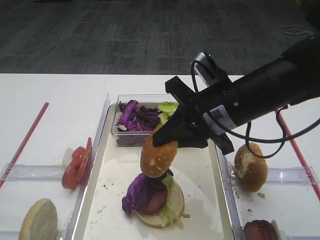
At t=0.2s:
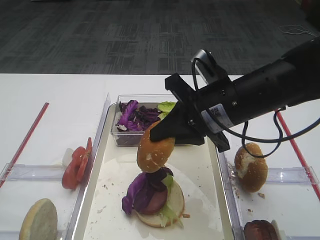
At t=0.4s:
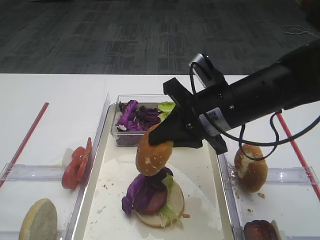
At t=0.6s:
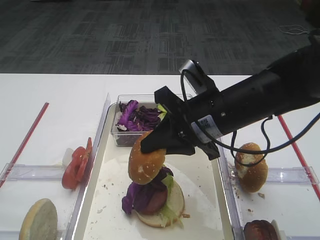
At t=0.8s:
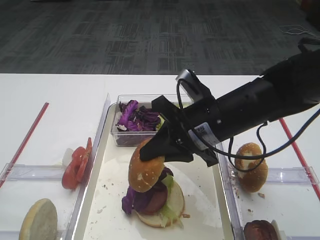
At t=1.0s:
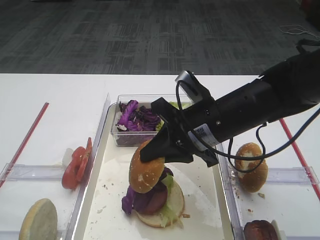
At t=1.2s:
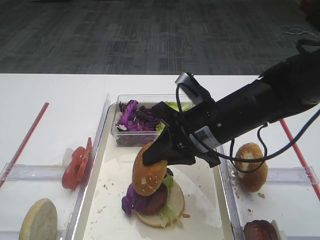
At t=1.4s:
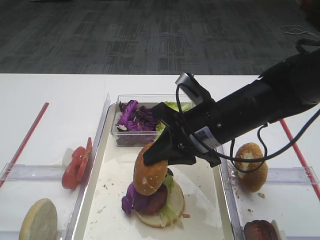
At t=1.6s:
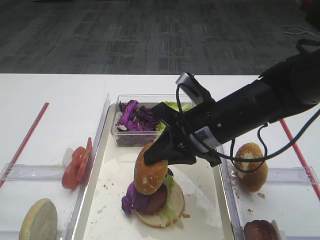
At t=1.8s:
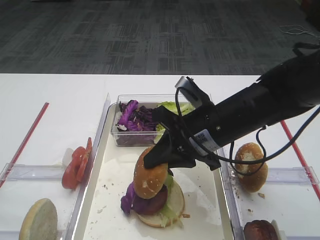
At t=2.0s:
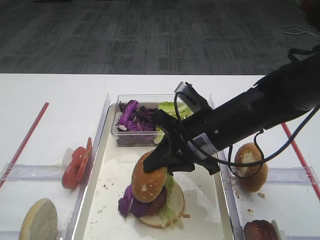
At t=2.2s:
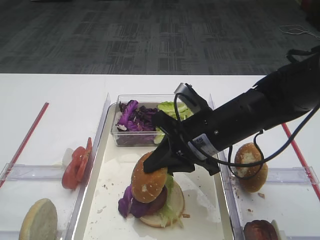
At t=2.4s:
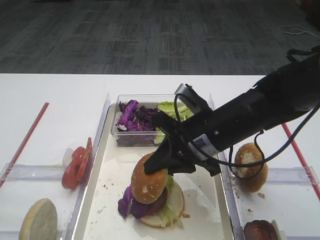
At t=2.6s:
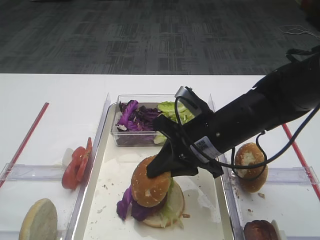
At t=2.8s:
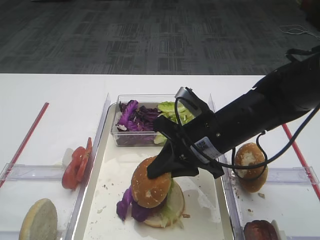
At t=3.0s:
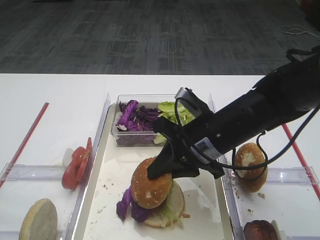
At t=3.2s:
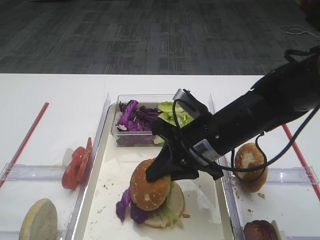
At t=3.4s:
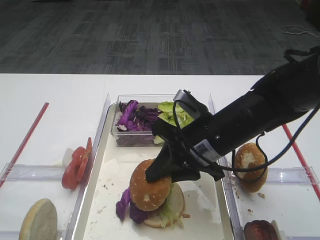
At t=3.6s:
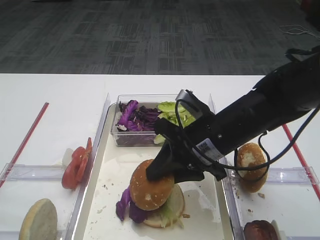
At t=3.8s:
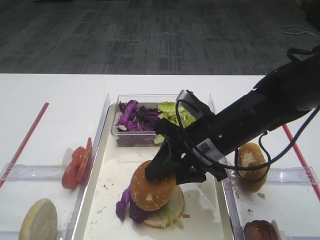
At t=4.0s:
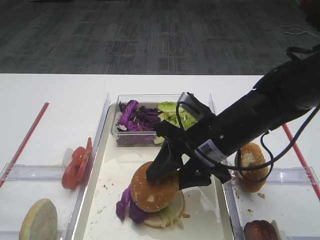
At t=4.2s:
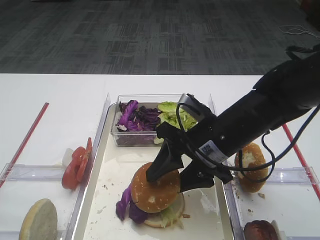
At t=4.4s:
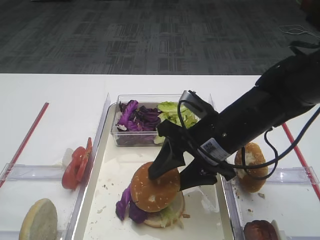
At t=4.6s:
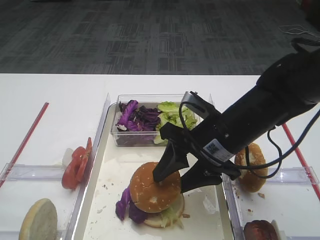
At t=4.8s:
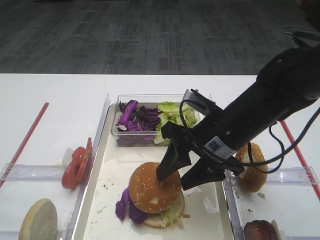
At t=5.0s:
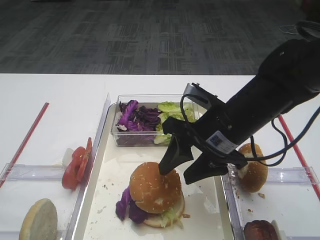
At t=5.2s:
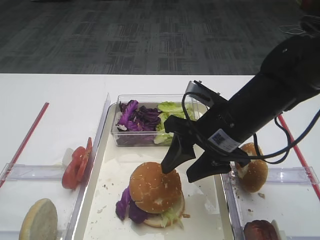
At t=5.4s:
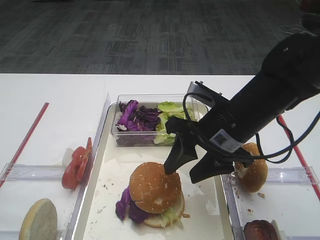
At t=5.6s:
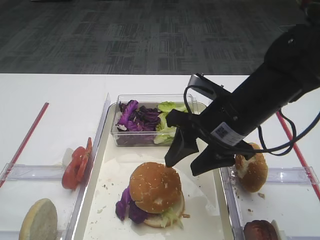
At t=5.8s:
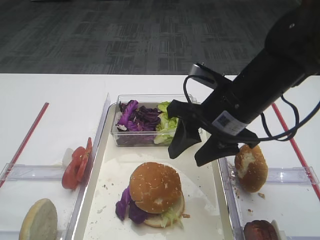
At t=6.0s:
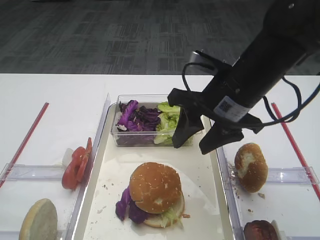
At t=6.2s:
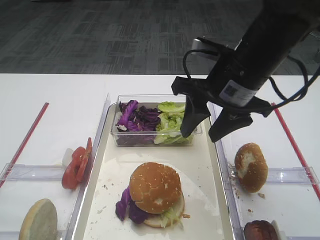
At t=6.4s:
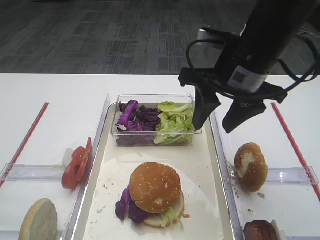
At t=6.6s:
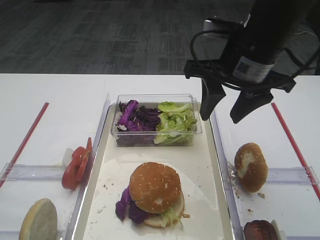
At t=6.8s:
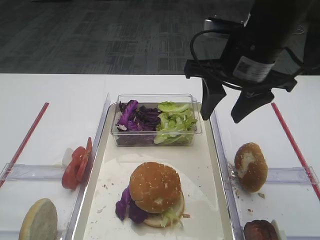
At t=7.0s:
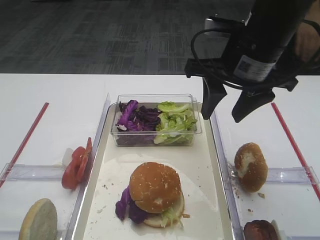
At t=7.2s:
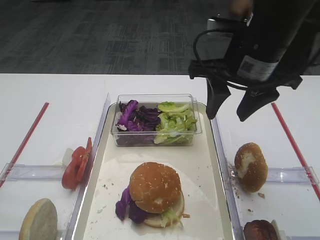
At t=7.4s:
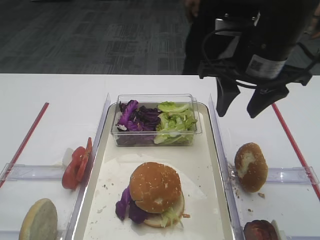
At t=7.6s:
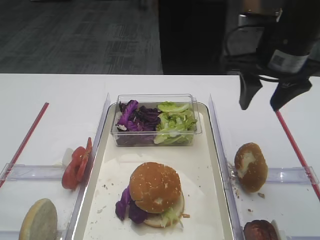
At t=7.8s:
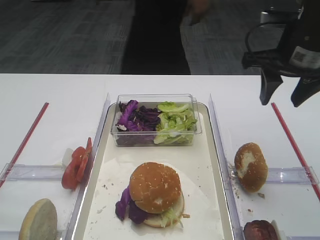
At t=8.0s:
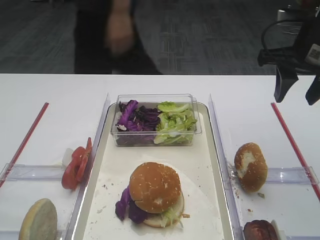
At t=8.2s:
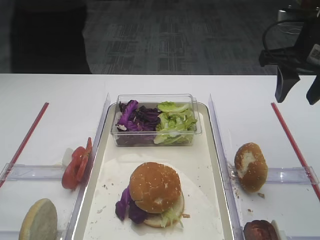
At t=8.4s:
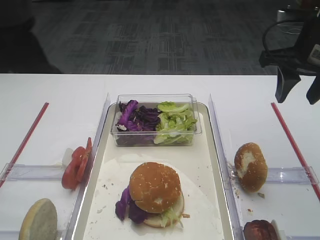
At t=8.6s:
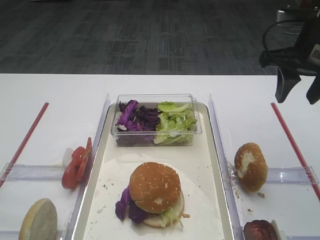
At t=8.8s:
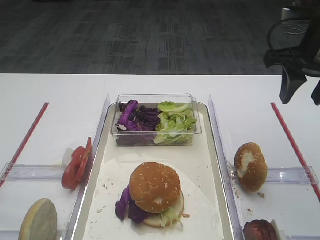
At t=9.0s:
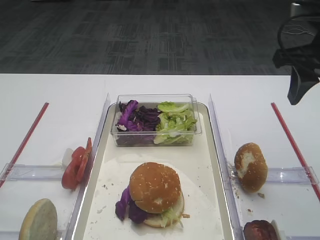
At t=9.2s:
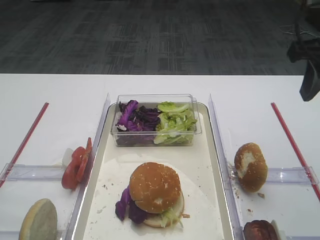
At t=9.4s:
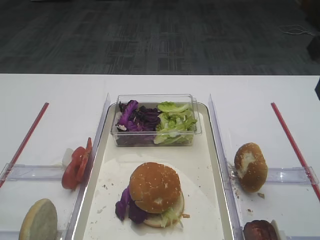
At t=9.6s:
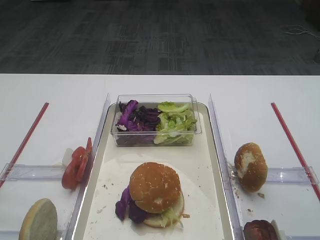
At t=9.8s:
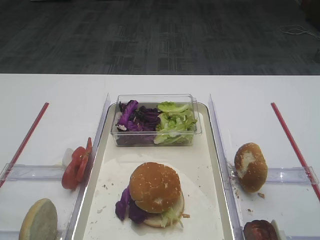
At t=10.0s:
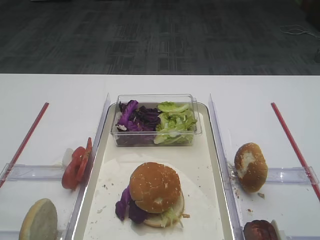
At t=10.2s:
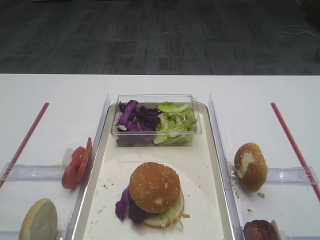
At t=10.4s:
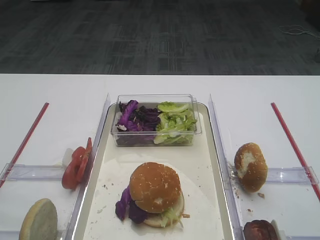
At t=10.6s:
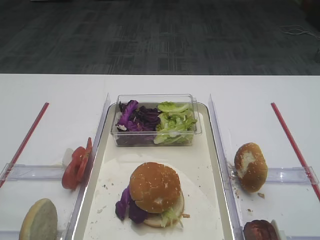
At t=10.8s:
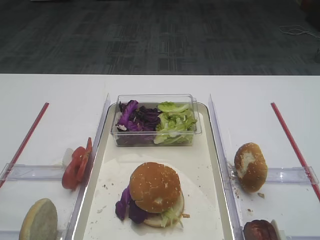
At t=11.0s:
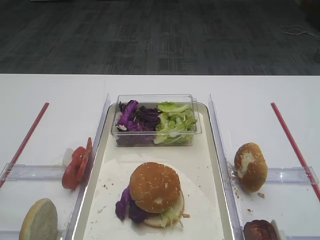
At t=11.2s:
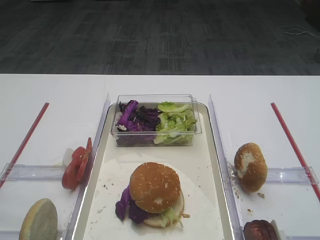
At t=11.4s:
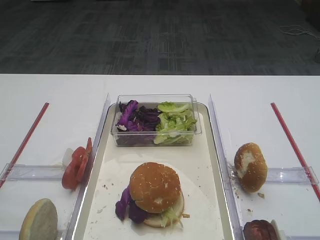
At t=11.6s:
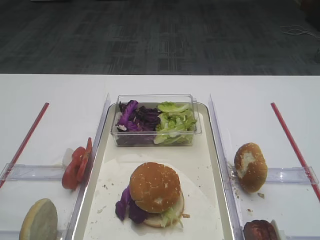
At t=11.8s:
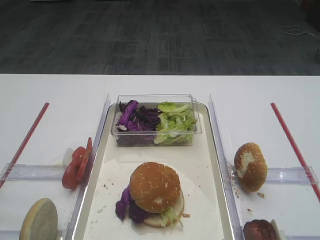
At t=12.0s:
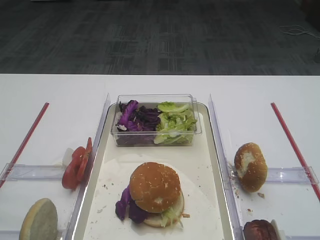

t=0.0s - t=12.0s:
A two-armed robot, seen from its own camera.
Step, t=0.0s - t=5.0s: Place the hamburger lid on the purple cabbage with the right gripper.
t=0.0s - t=3.0s: The grippers stay close to where they were, moving slightly.
t=3.0s - t=4.4s: The right gripper opens.
t=4.4s - t=6.0s: The right gripper is displaced upward by roughly 5 cm.
t=6.0s - t=7.6s: The right gripper heads to the right and upward, covering approximately 10 cm.
t=7.6s - t=9.0s: The right gripper goes approximately 5 cm to the right.
t=9.0s - t=10.4s: The right gripper heads backward, covering some 20 cm.

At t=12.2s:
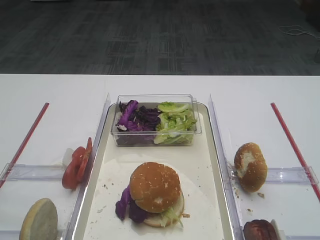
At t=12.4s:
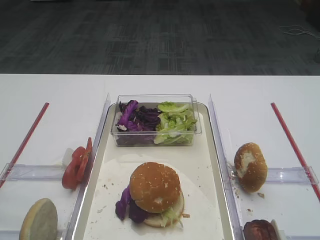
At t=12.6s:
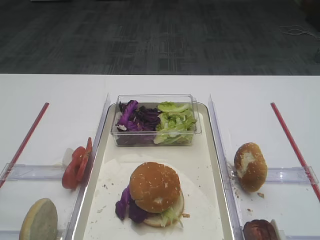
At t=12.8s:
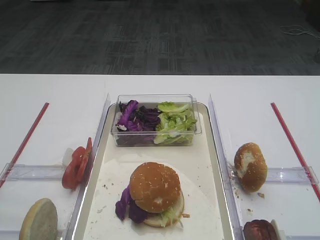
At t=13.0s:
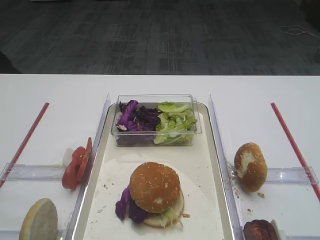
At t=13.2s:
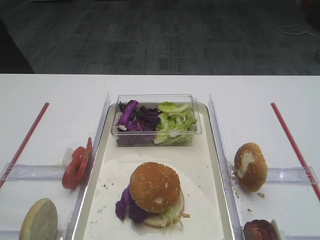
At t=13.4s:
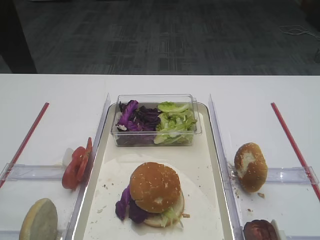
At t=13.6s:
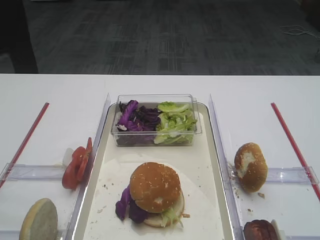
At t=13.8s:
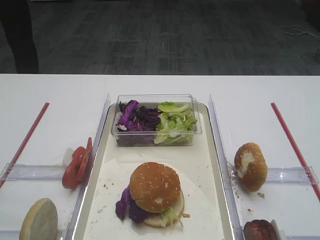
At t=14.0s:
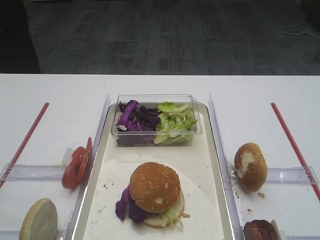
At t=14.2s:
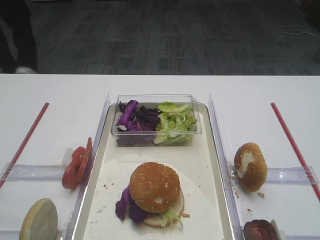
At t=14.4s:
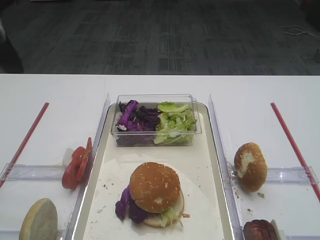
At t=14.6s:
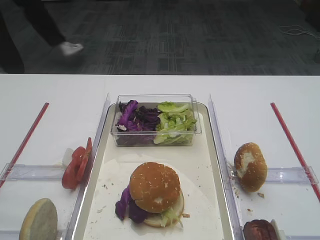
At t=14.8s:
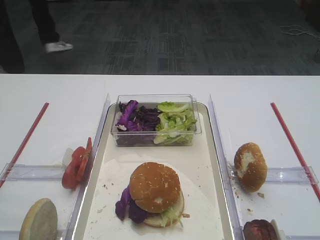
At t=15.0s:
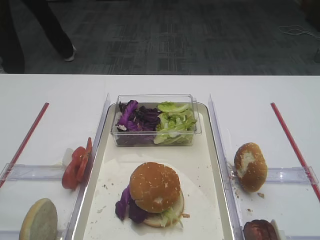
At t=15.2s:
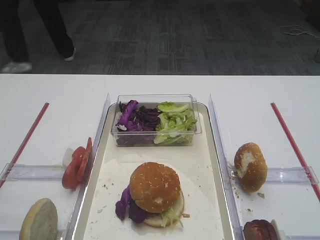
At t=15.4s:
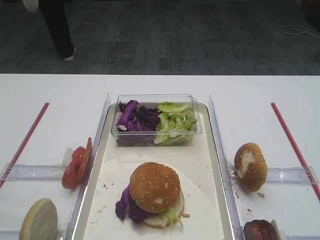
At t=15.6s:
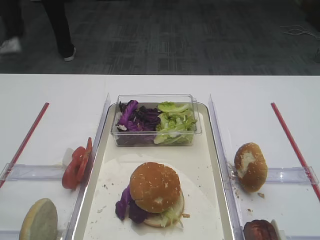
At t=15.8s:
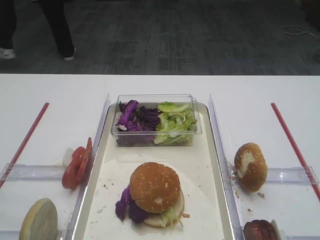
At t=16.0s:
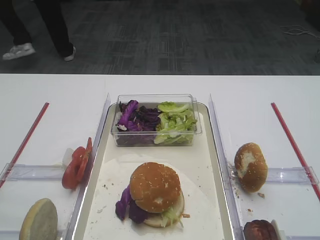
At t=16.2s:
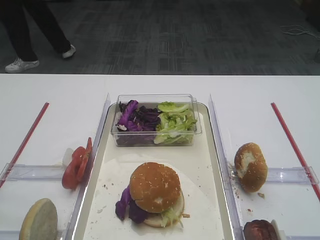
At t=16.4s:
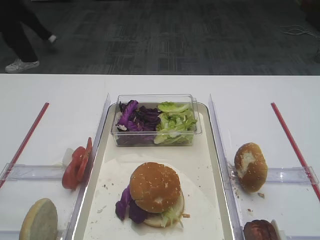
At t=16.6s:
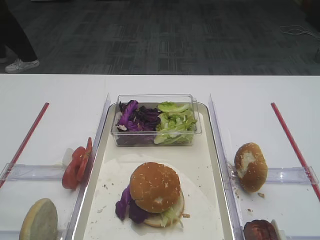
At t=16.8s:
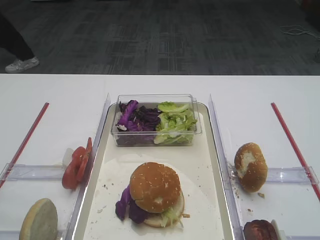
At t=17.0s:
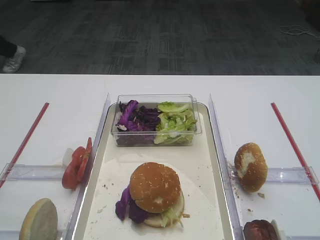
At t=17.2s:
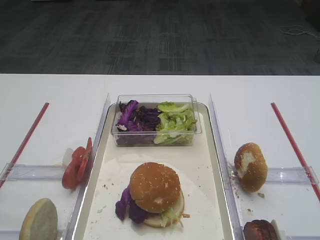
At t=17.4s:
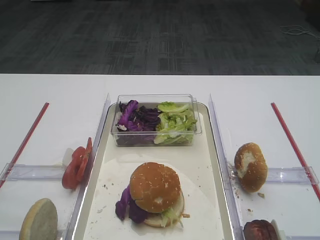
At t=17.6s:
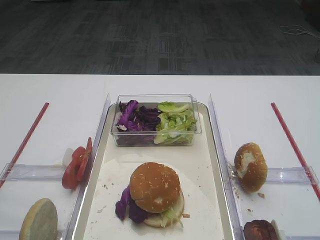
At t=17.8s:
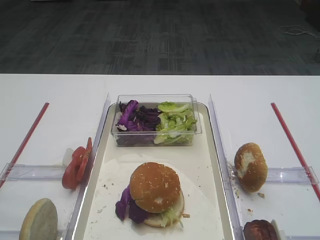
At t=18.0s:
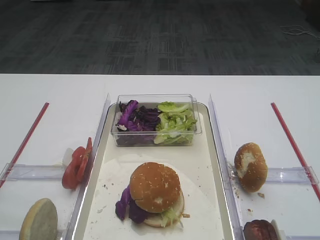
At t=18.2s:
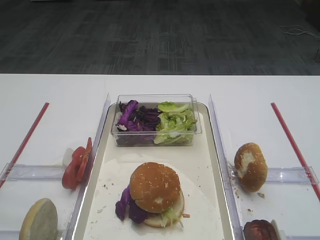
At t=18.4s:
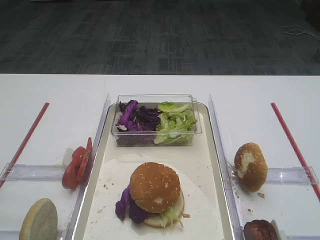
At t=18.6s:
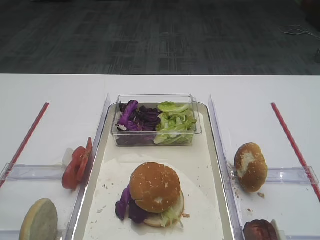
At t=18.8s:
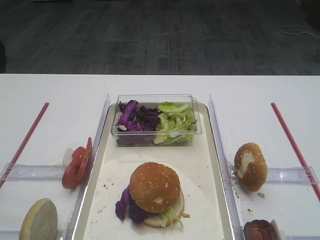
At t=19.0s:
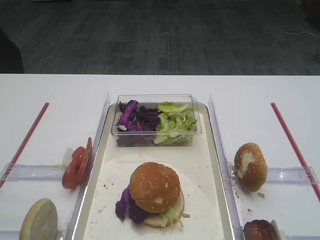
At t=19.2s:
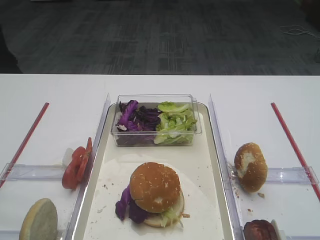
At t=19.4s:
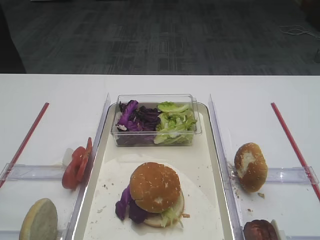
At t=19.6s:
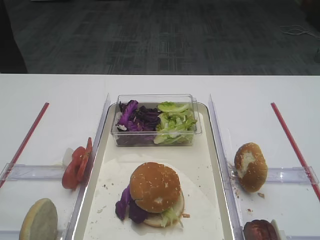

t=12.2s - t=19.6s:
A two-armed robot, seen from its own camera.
t=12.2s - t=13.6s: The grippers move only a little.
t=13.6s - t=15.2s: Both grippers stay about where they are.
